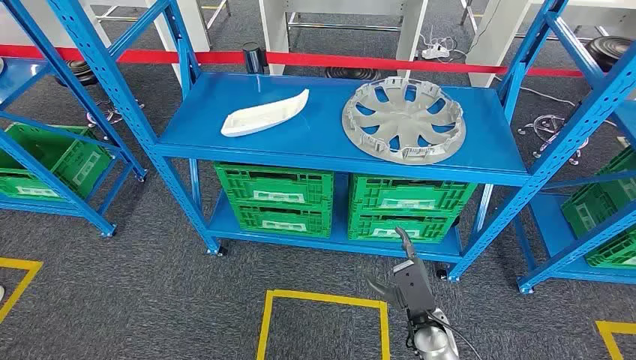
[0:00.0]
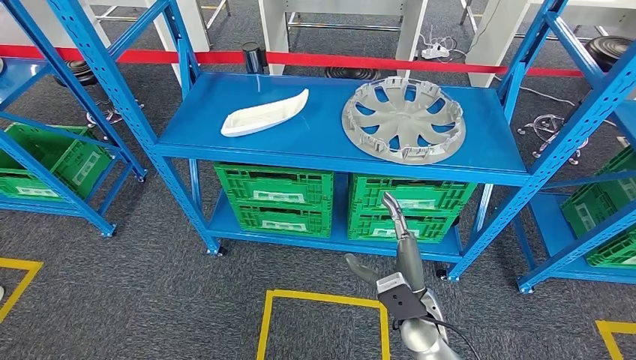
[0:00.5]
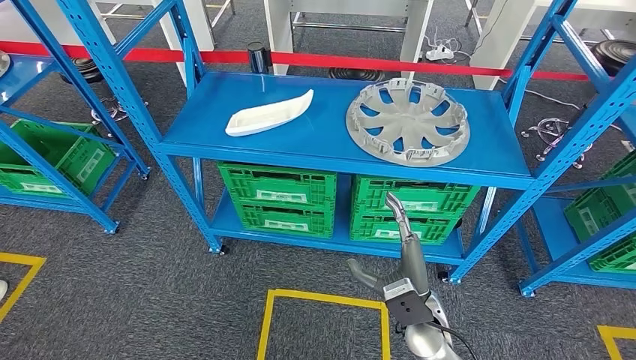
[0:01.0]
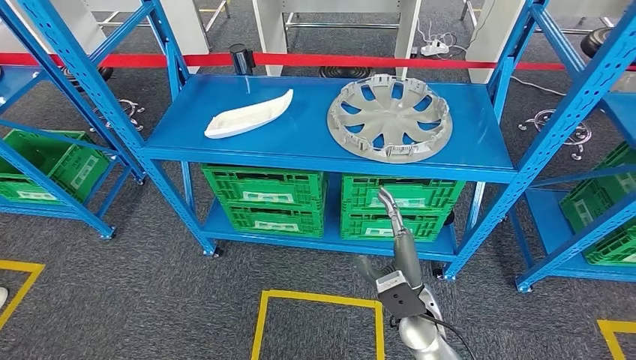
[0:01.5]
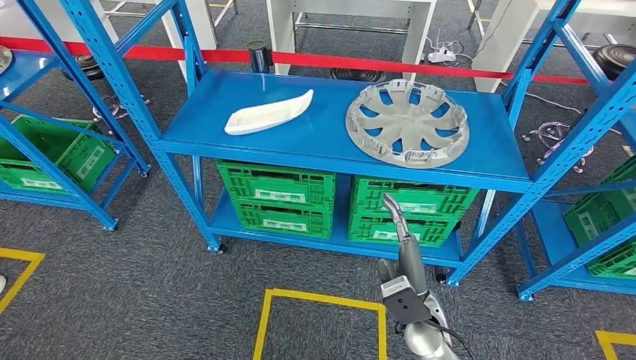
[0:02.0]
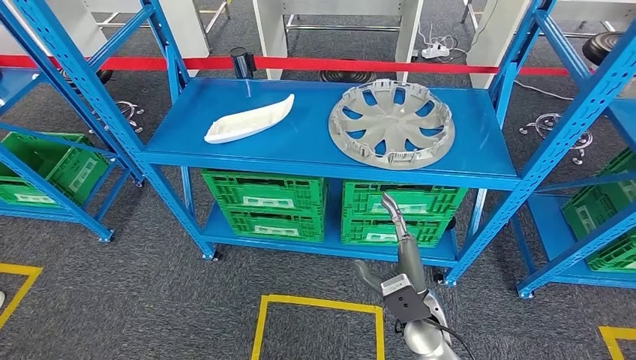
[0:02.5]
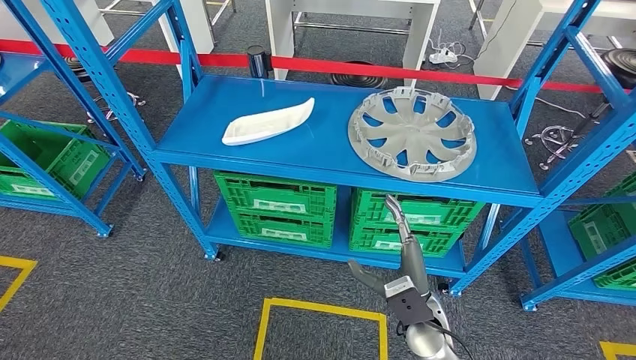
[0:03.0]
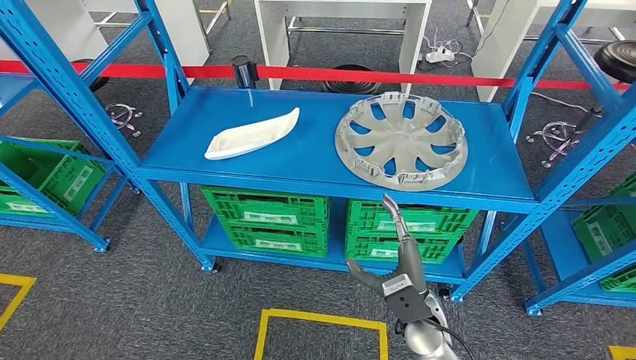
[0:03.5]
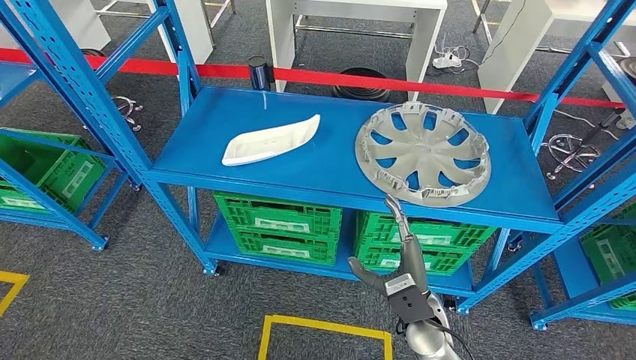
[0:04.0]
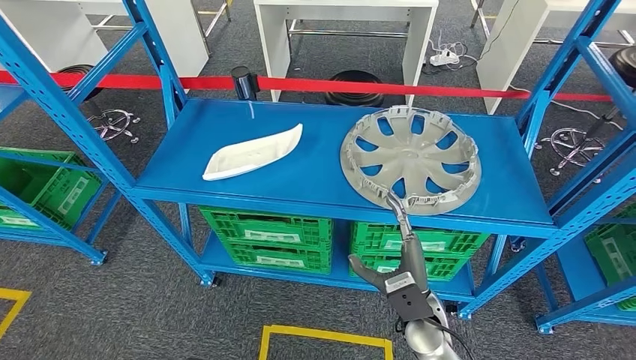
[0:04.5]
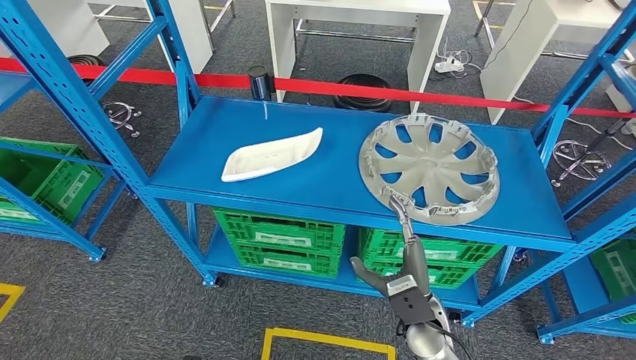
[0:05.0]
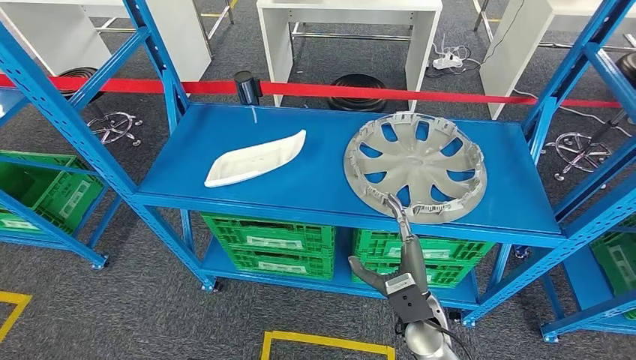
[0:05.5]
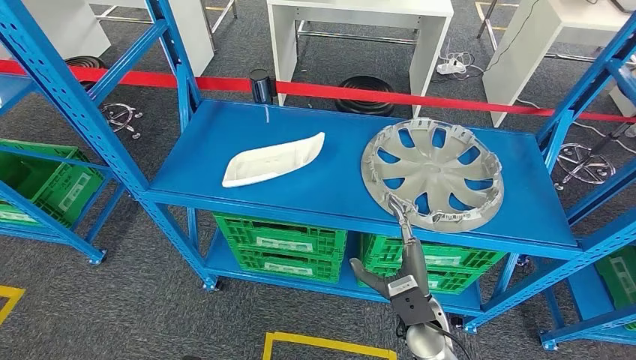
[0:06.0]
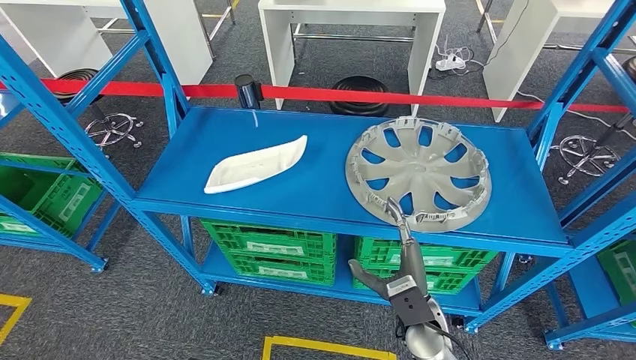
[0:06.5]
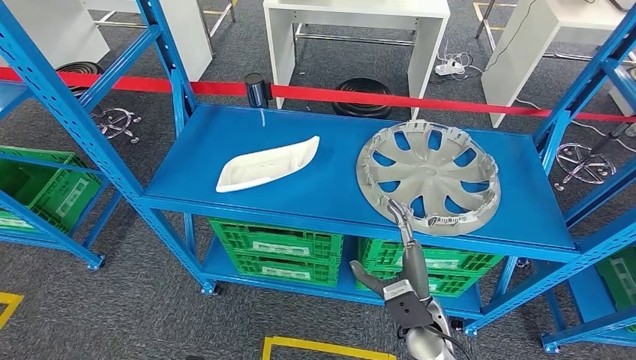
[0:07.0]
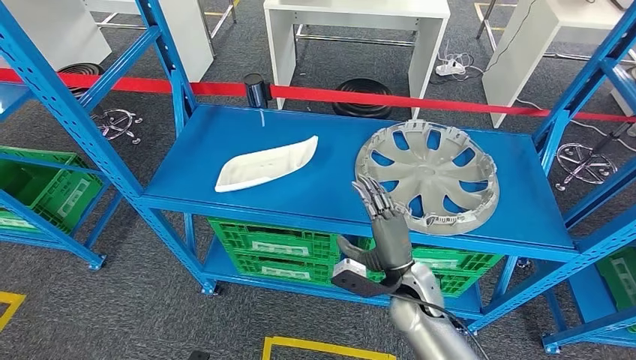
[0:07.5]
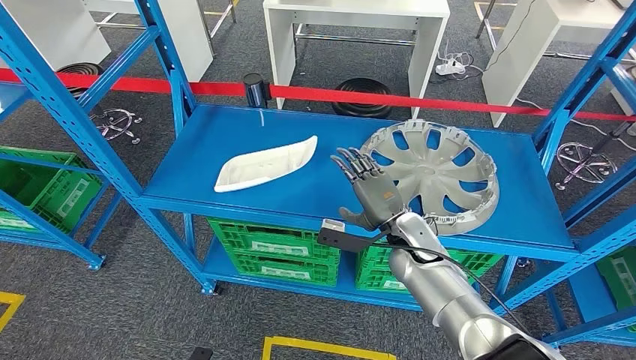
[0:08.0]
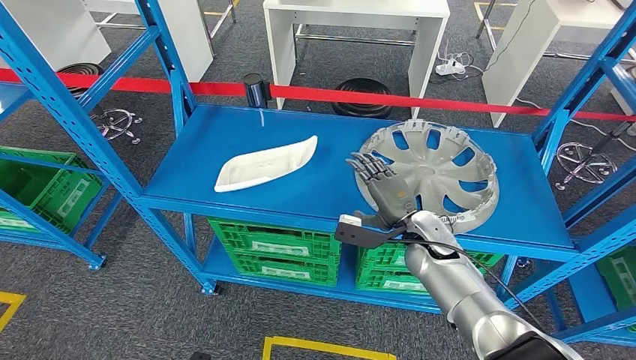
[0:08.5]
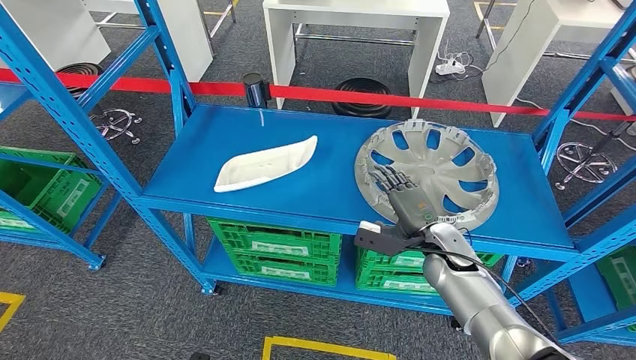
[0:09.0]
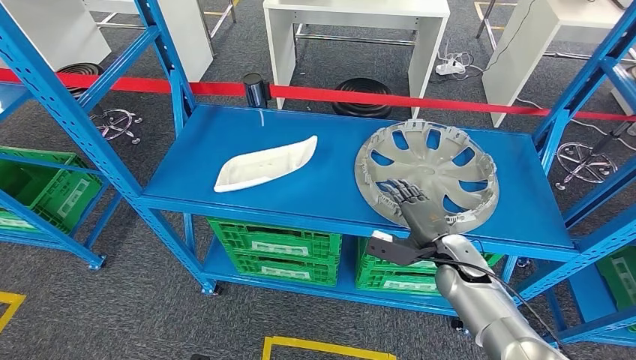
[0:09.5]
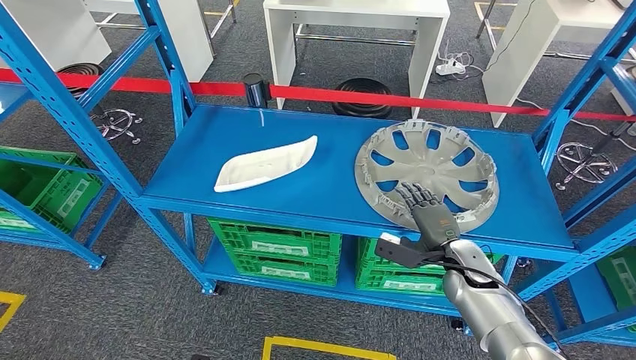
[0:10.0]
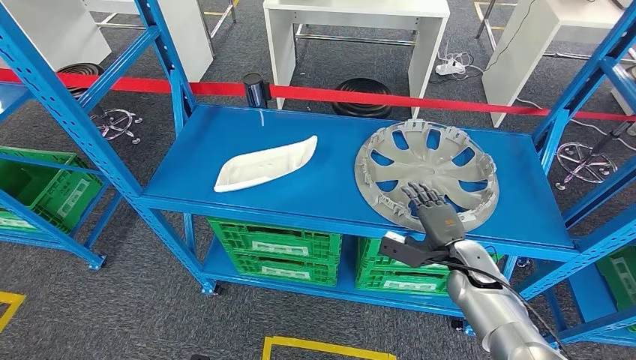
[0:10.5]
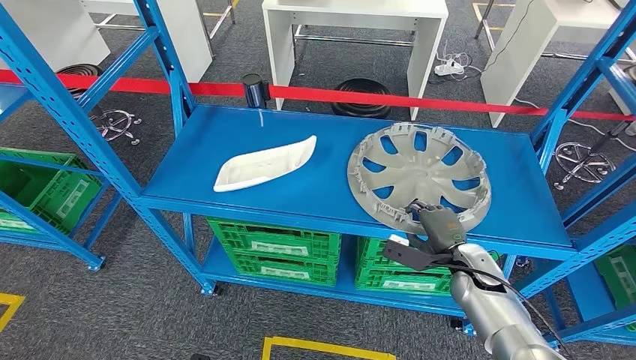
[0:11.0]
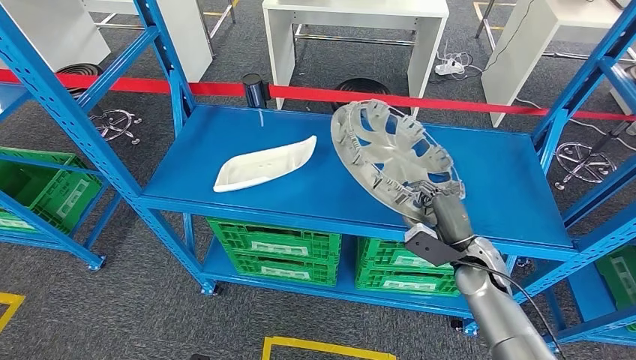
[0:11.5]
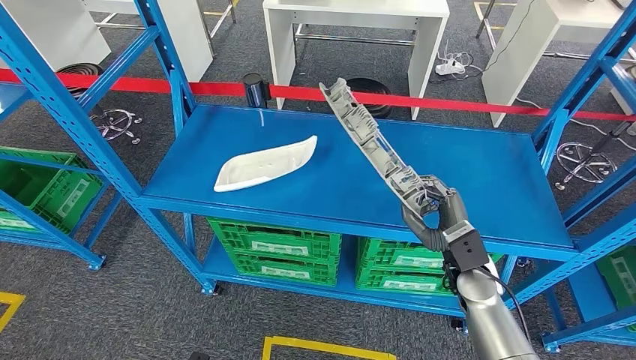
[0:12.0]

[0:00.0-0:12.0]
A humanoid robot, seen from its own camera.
Step, 0:00.0 to 0:12.0: Pick up the small component from the shelf.
0:08.0 to 0:10.0: The right hand shifts about 15 cm to the right and downward.

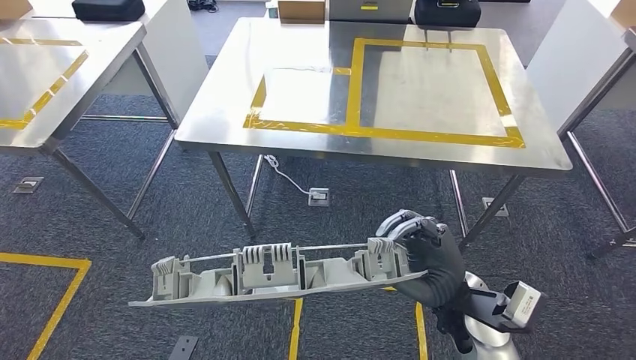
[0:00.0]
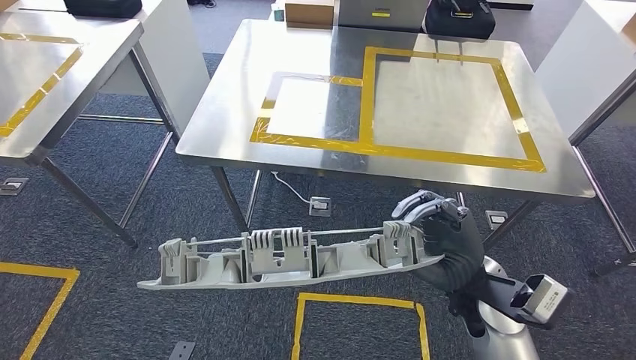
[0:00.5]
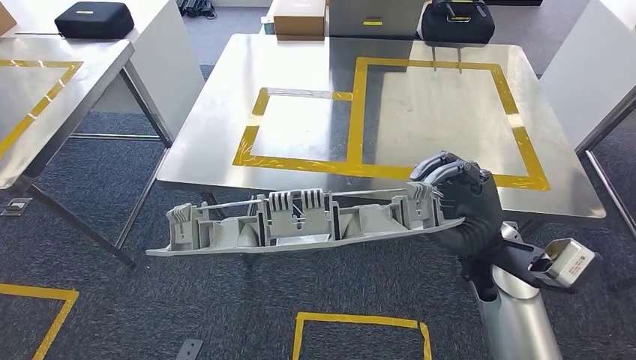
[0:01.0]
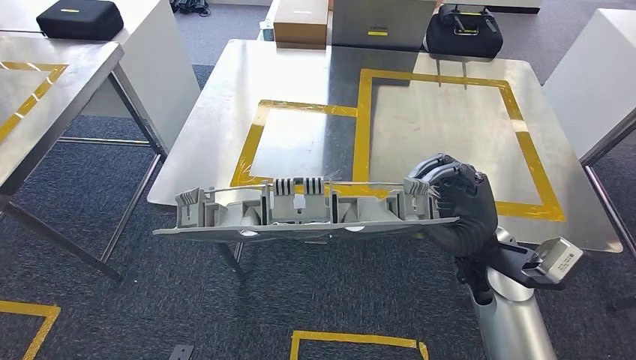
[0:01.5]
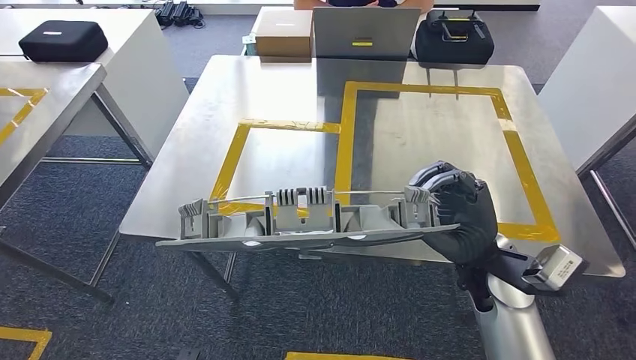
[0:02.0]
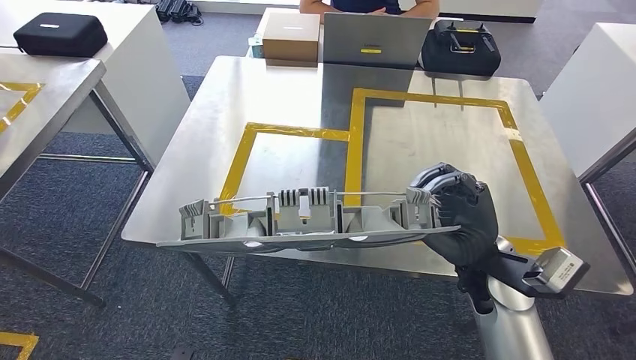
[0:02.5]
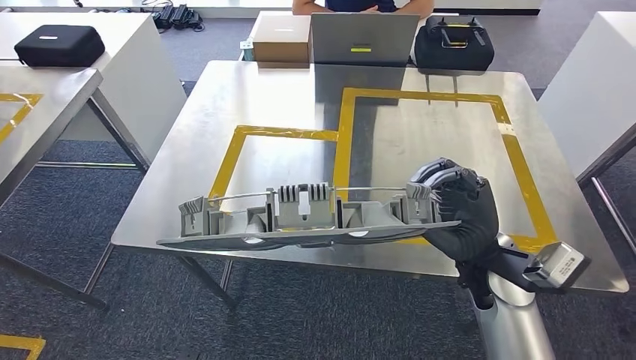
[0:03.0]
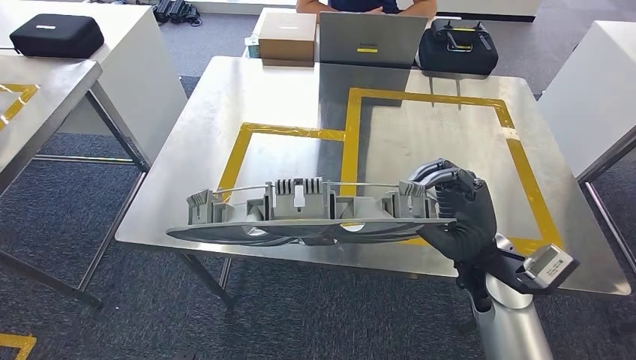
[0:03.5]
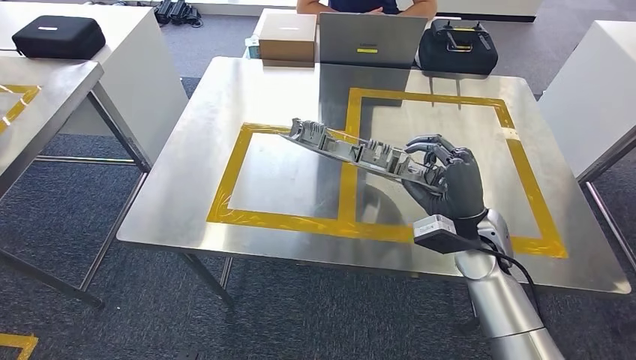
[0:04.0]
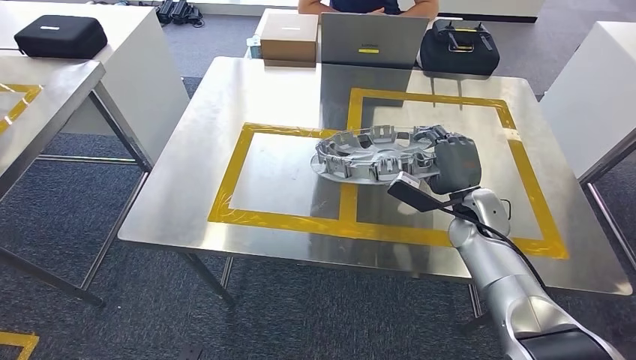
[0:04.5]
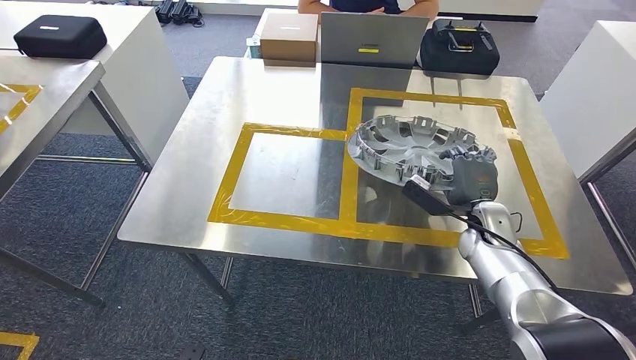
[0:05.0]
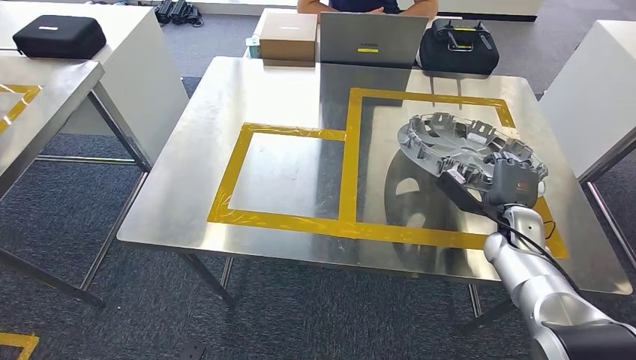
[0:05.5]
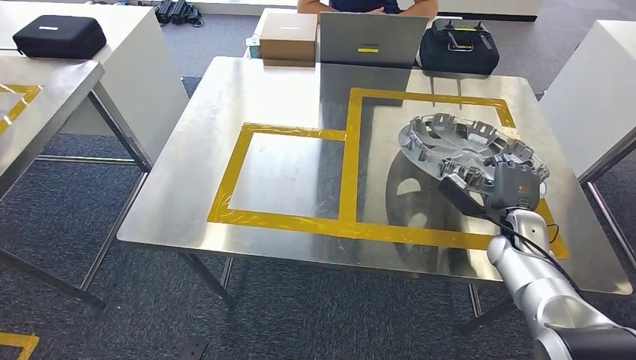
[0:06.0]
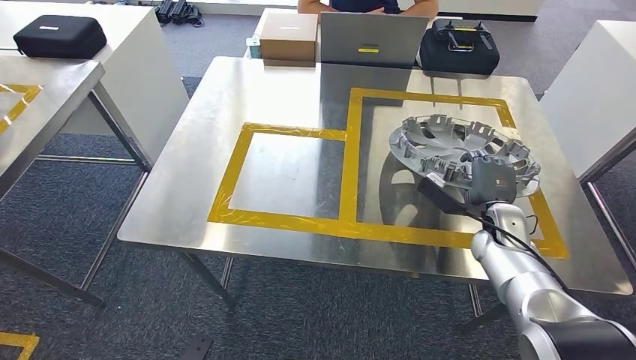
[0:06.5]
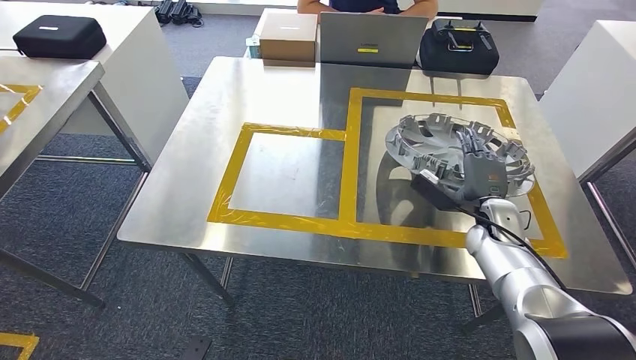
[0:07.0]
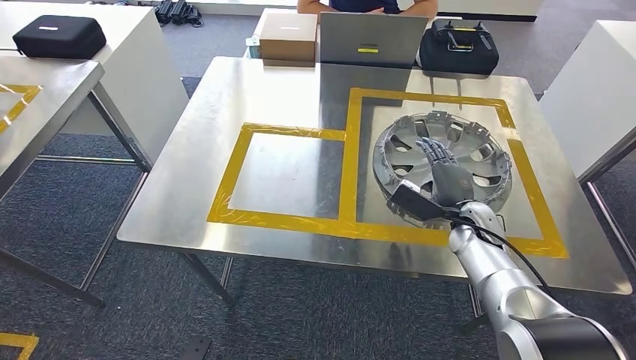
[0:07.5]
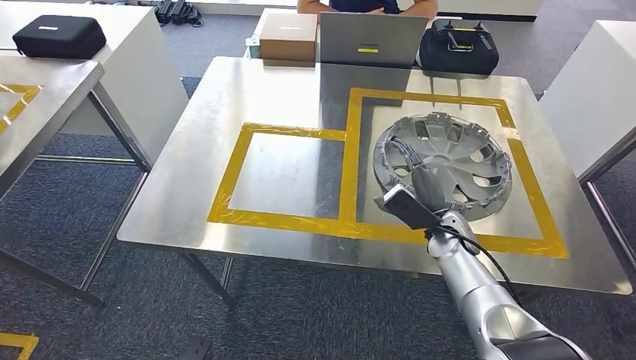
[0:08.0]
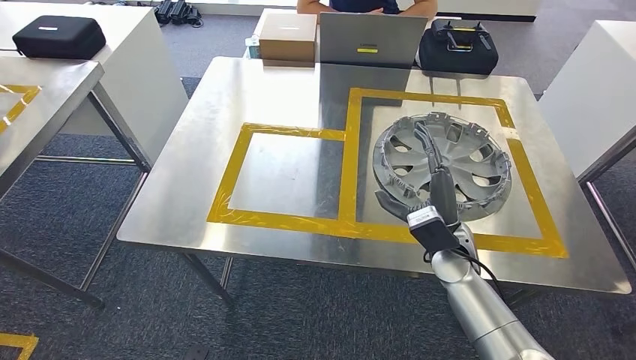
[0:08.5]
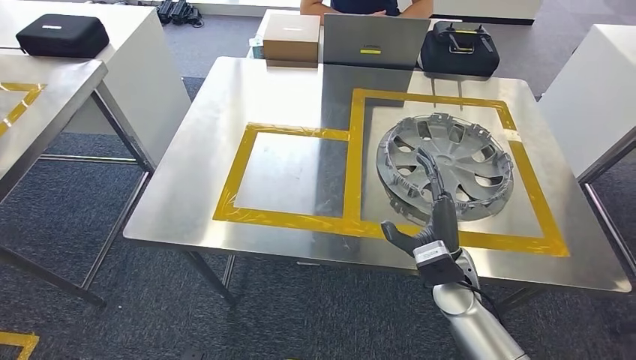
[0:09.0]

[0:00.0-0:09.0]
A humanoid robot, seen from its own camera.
Step, 0:00.0 to 0:03.0: Move the small component to the workbench.
Step, 0:03.5 to 0:06.0: Insert the small component into the corresponding slot on the workbench.
0:07.0 to 0:09.0: The right hand goes about 15 cm to the left and backward.
